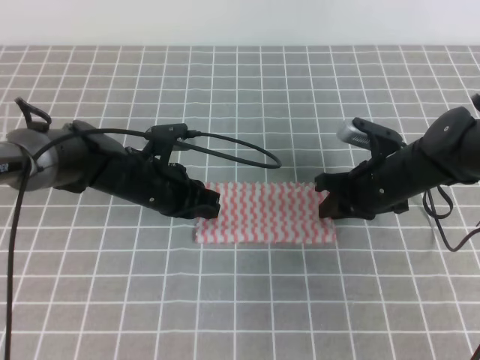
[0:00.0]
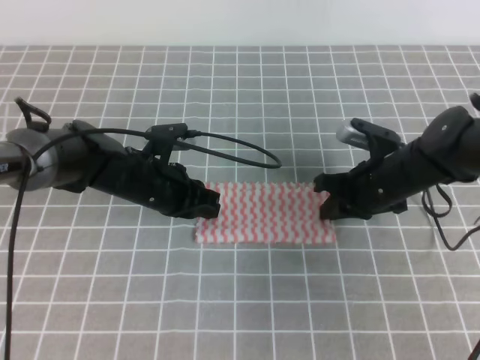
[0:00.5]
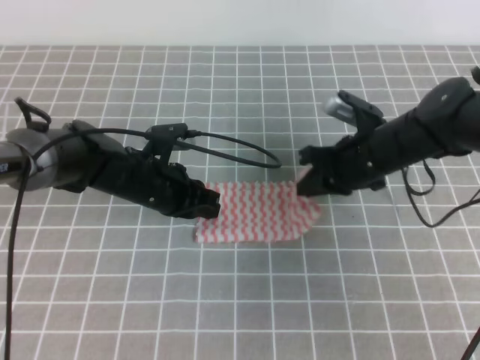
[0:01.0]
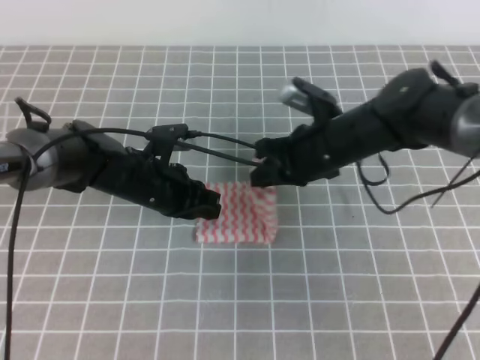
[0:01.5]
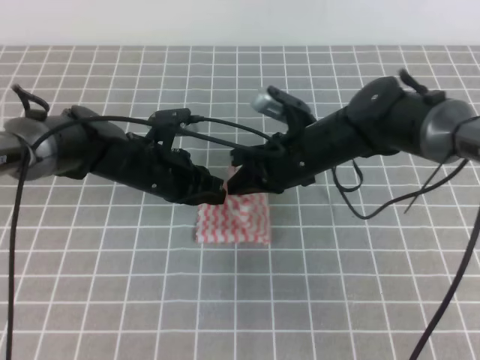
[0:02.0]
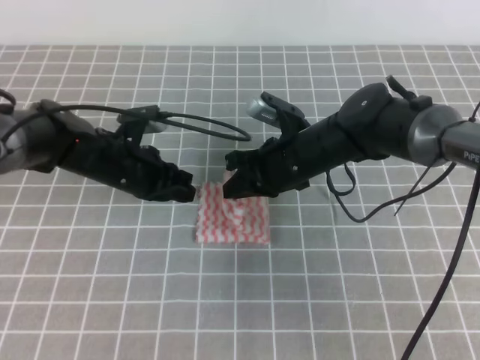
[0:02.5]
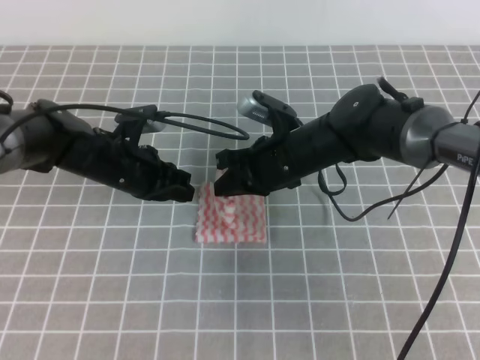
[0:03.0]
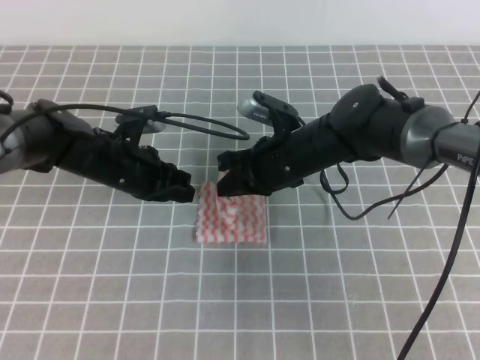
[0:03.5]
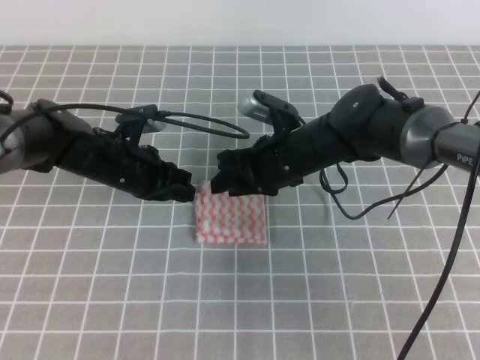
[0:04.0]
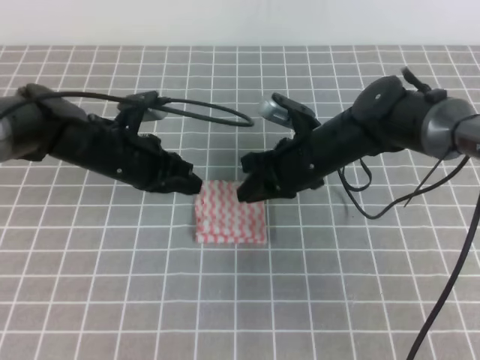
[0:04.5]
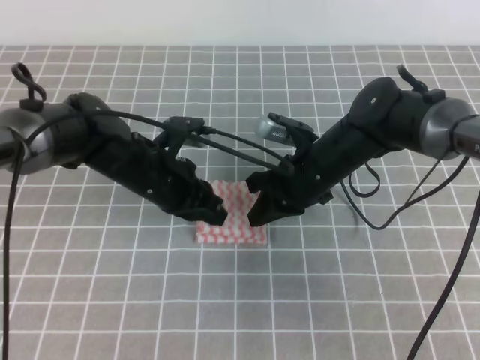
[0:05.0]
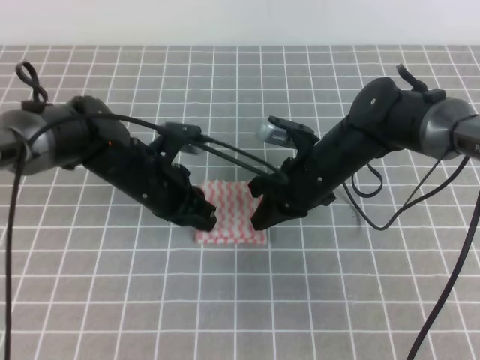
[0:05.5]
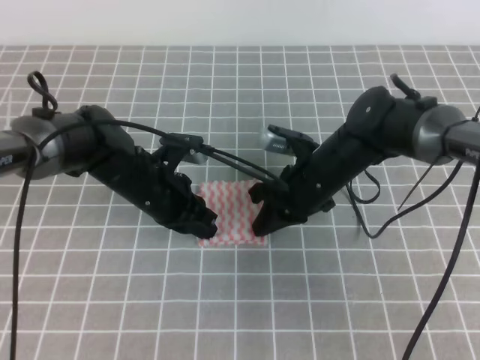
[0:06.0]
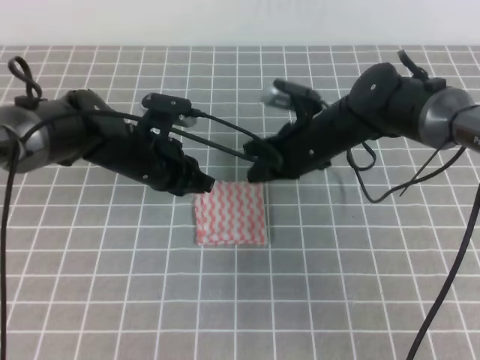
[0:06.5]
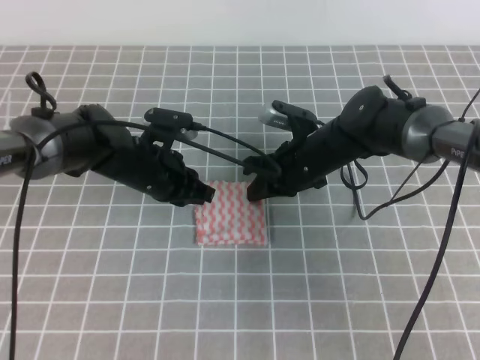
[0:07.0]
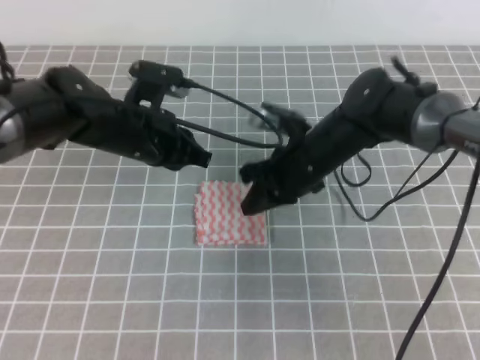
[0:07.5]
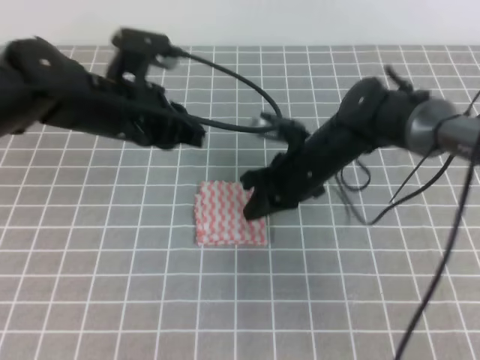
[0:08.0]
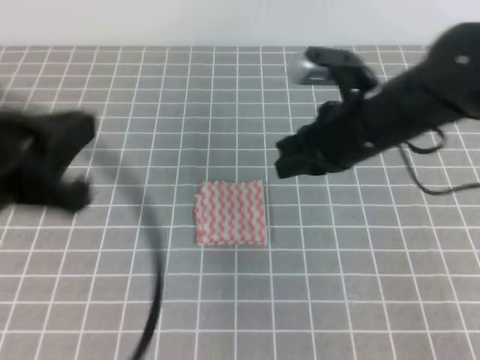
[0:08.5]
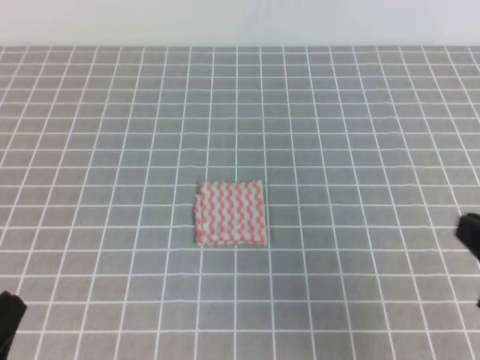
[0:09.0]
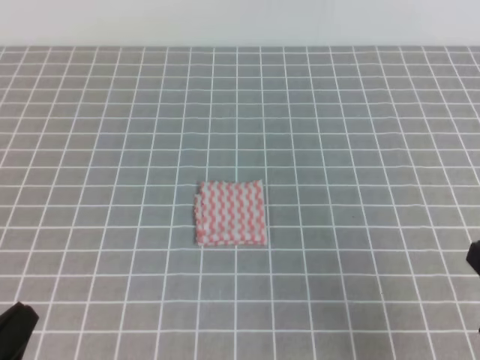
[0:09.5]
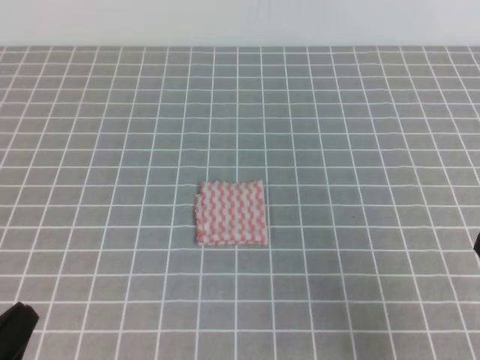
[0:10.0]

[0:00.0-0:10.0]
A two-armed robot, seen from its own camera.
0:00.0 to 0:02.0: The right gripper goes roughly 10 cm to the left, and closes its fingers.
0:02.0 to 0:04.0: The right gripper opens up.
0:04.0 to 0:06.0: The right gripper closes up.
0:06.0 to 0:08.0: The left gripper heads upward, covering roughly 10 cm.
0:08.0 to 0:10.0: The left gripper goes approximately 30 cm backward and to the left. The right gripper goes roughly 35 cm backward and to the right.

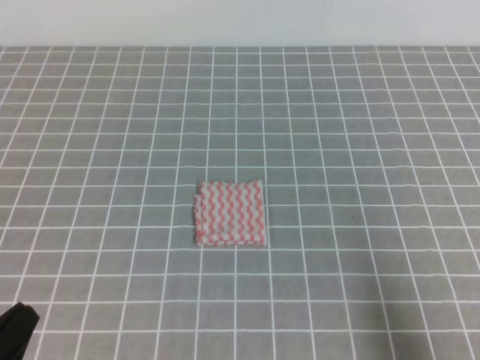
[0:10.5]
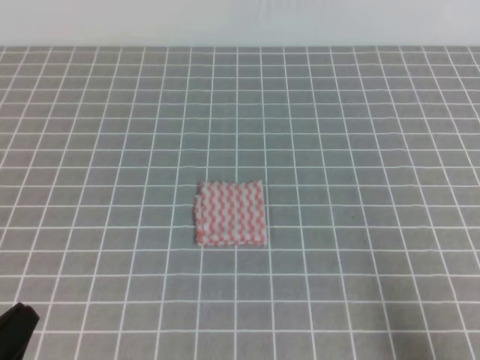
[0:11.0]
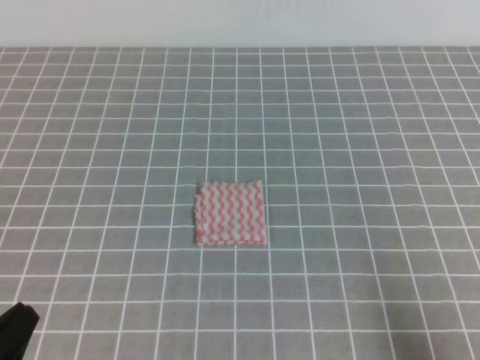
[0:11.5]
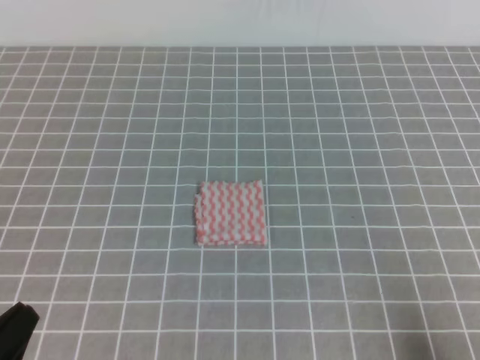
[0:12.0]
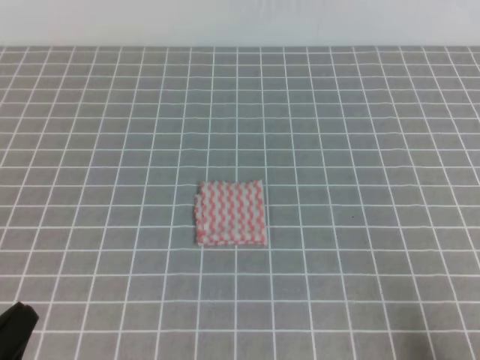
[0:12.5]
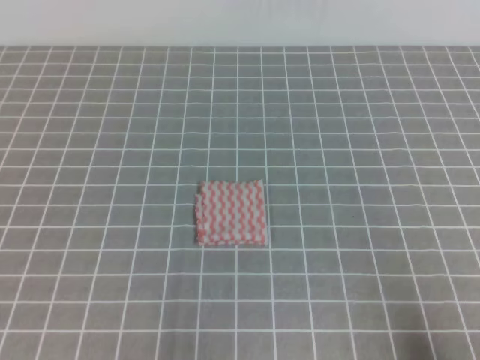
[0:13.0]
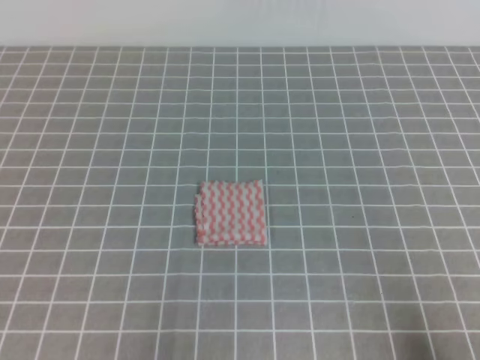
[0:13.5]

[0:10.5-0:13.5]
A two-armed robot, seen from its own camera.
0:10.5 to 0:12.0: The right gripper is displaced downward by about 5 cm.
